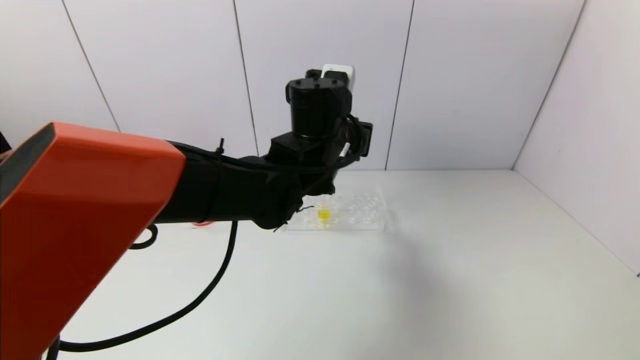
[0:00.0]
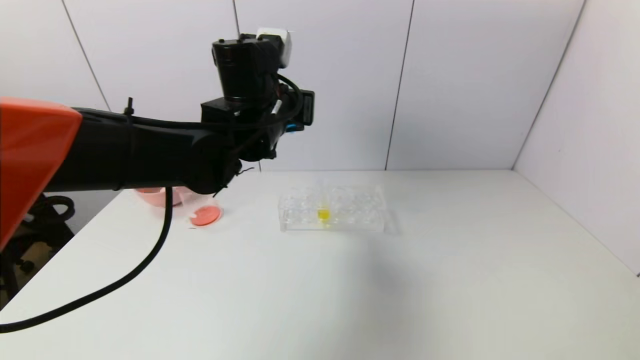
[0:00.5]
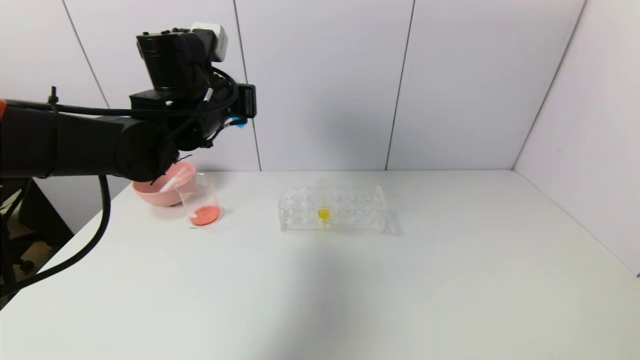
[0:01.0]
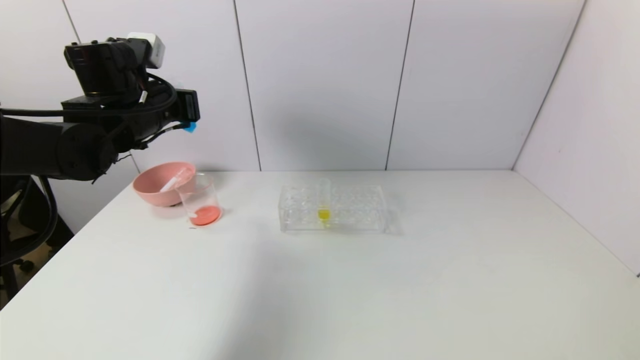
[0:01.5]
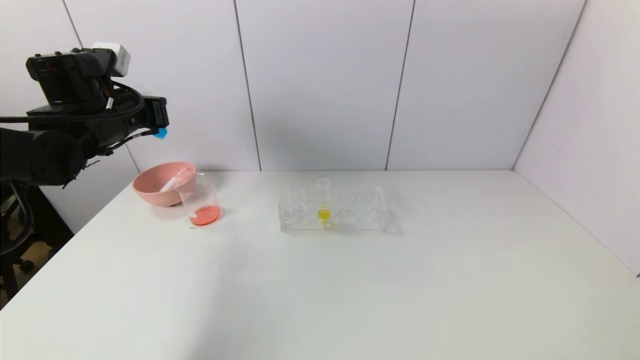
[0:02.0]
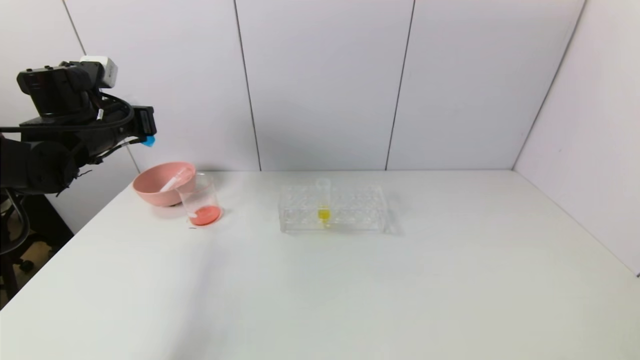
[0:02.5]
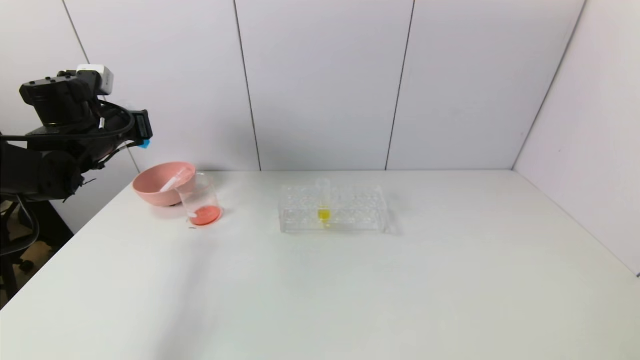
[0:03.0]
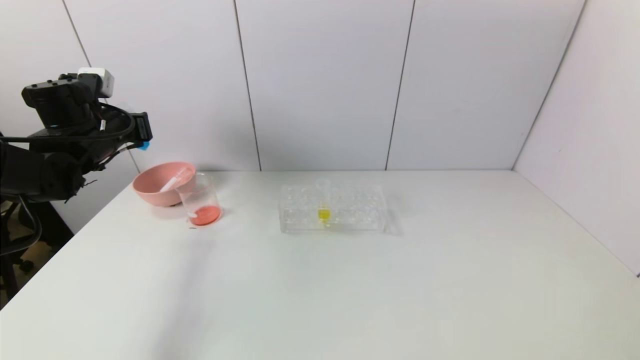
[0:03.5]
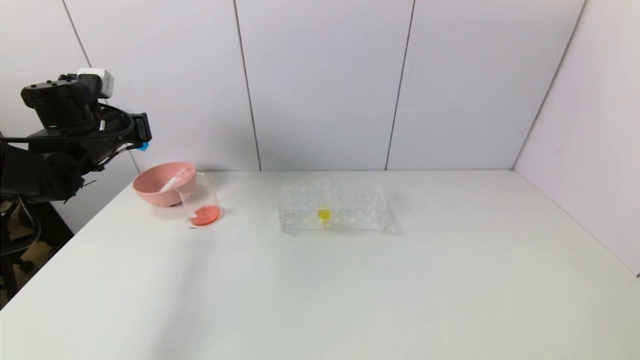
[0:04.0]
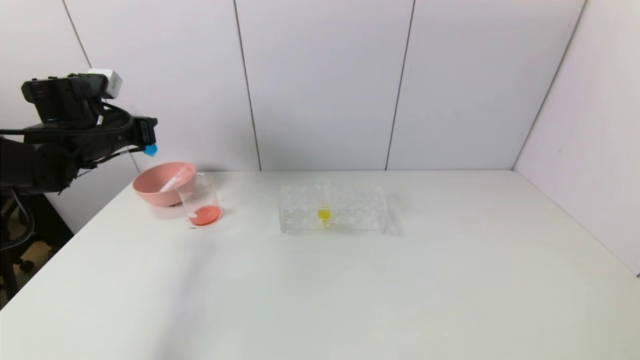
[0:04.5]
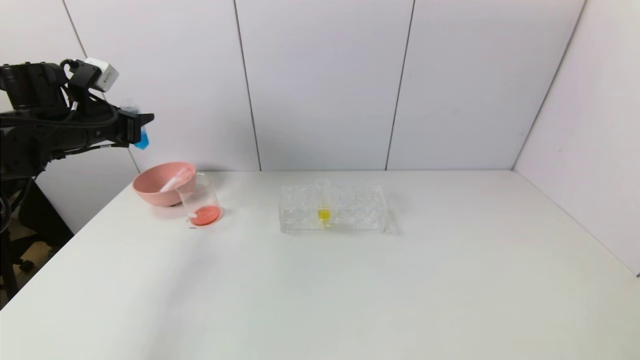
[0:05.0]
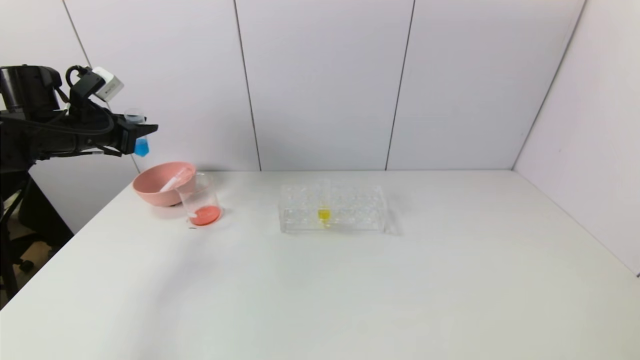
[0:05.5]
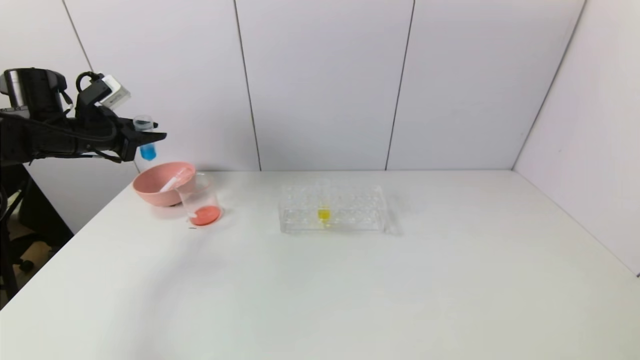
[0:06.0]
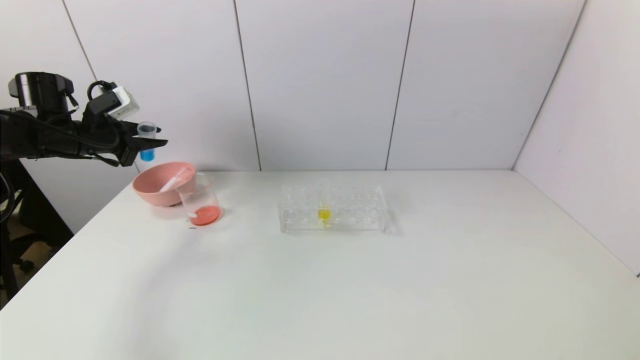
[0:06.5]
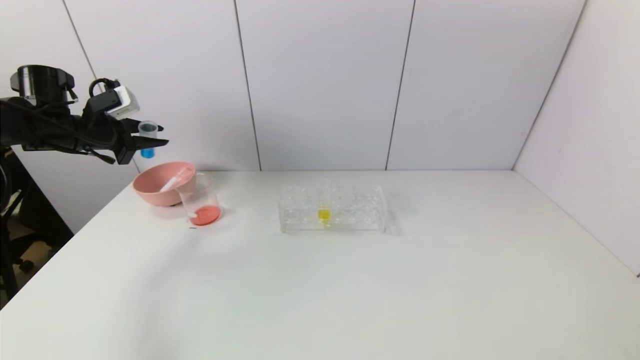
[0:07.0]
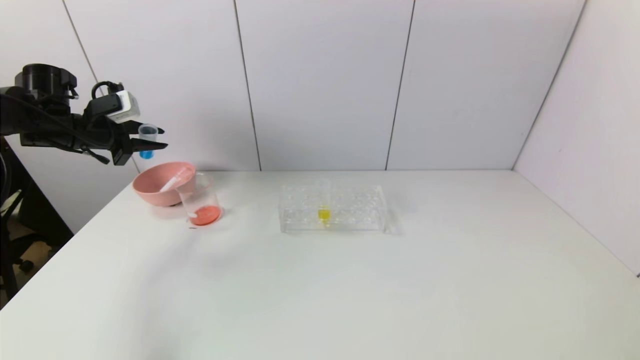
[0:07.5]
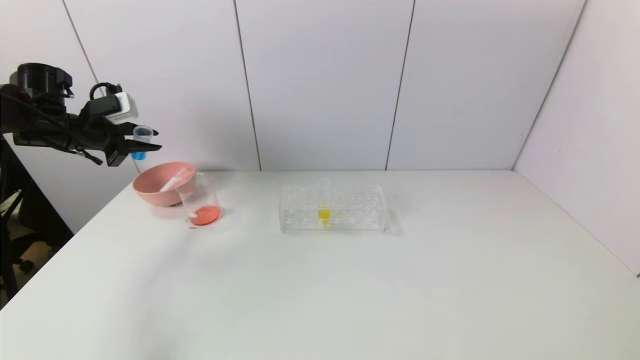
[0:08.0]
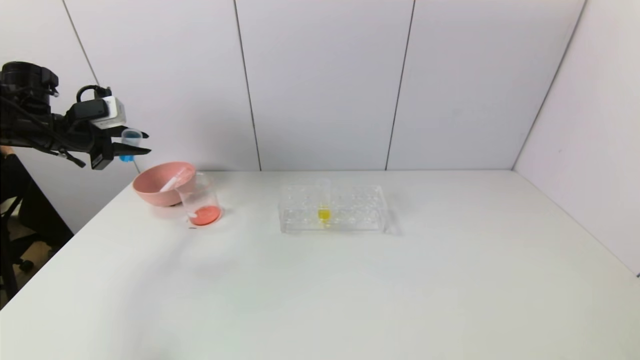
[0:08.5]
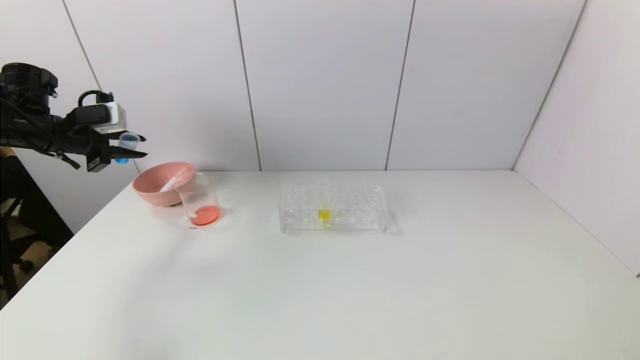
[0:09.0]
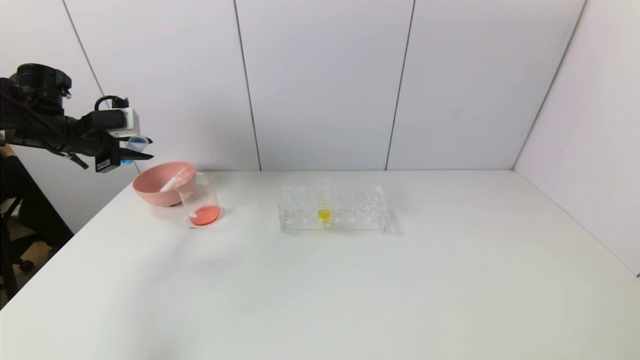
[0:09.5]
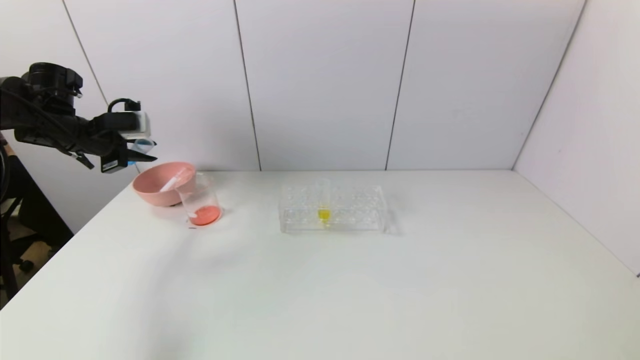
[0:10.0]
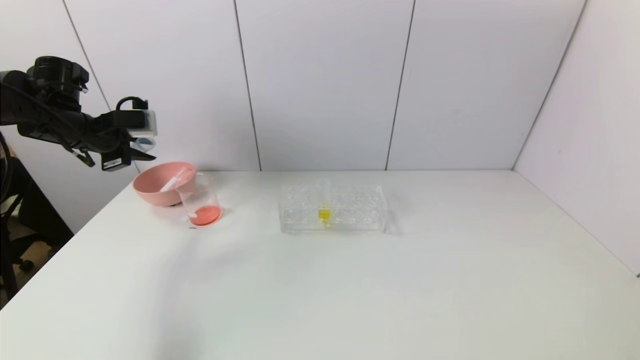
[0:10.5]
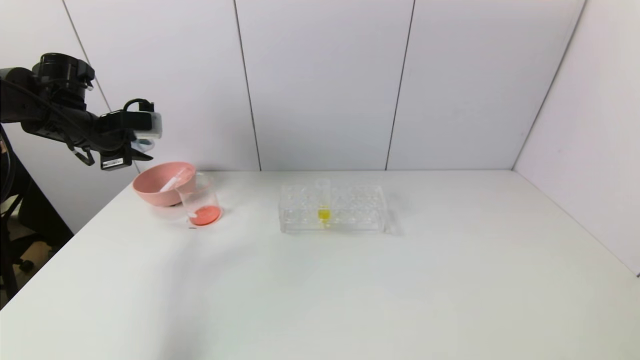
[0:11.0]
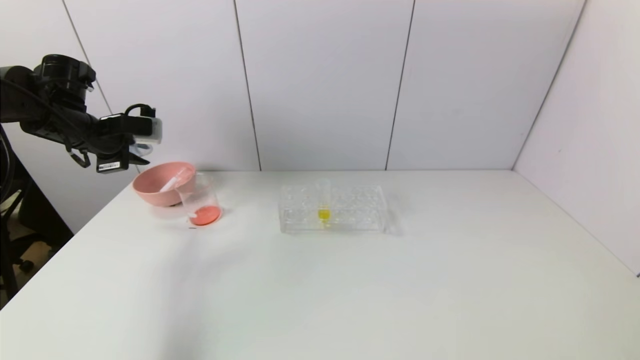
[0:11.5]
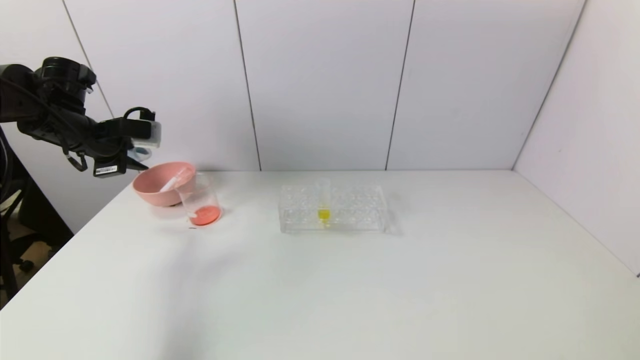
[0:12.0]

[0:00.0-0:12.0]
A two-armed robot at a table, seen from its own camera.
Task of the whole recording: pick up the test tube with red pigment and the test tube with blue pigment by grippers and pour them into the container.
0:00.0 to 0:02.0: The left gripper heads to the left, covering about 30 cm.
0:02.0 to 0:04.0: The left gripper shifts by approximately 5 cm.
0:08.0 to 0:10.0: The grippers stay close to where they were, moving slightly.
0:10.0 to 0:12.0: The grippers make only small movements.

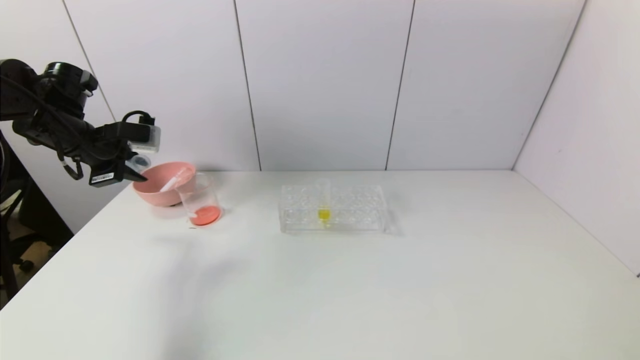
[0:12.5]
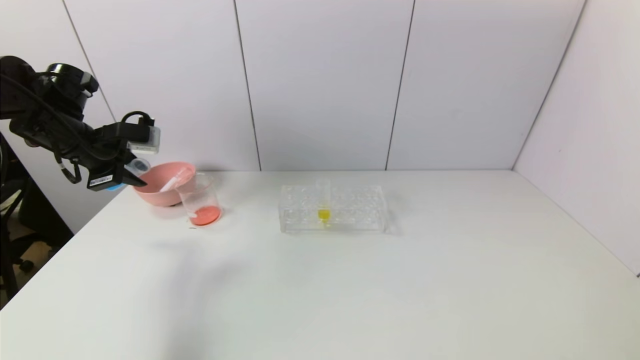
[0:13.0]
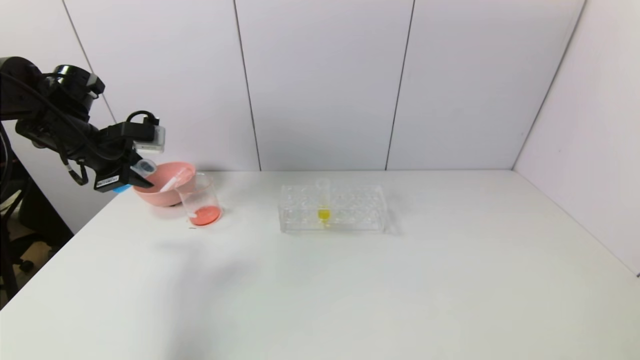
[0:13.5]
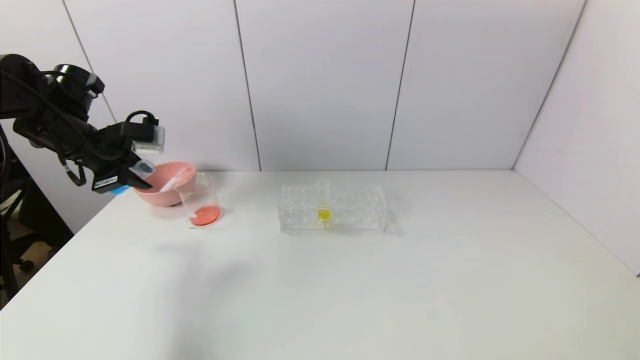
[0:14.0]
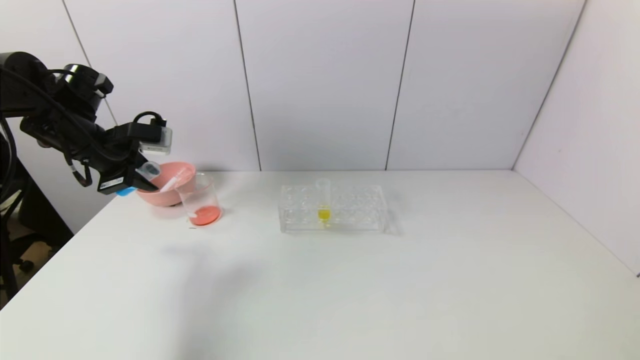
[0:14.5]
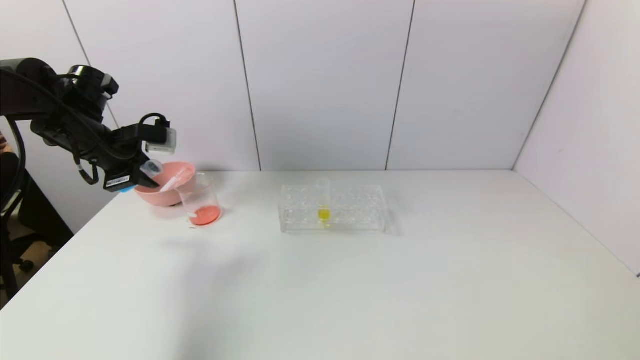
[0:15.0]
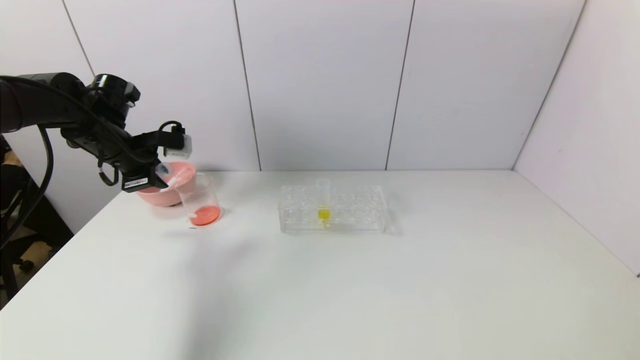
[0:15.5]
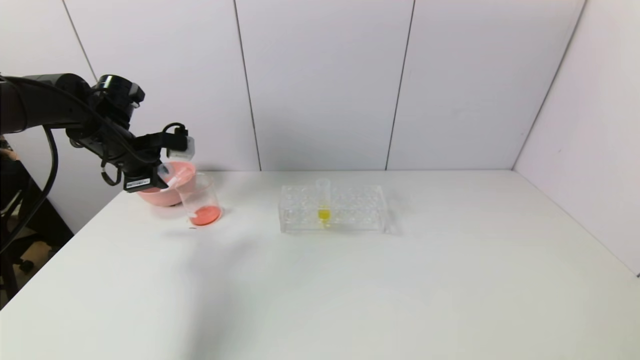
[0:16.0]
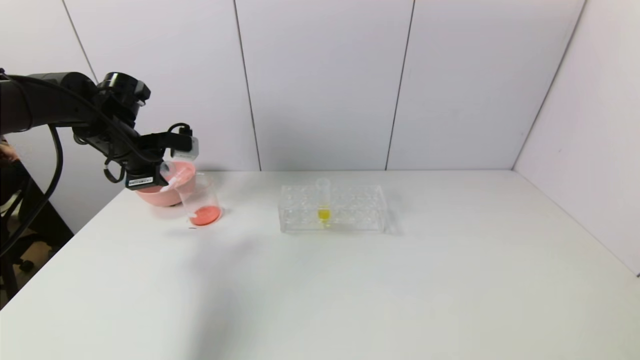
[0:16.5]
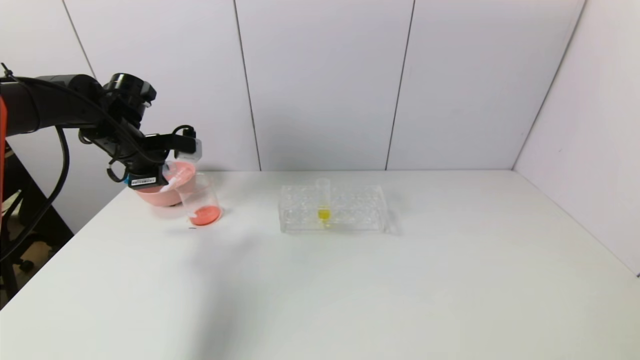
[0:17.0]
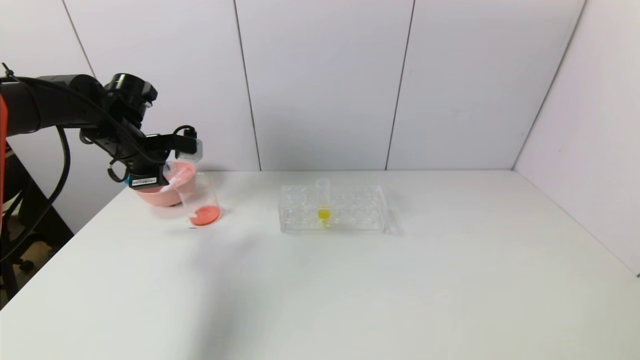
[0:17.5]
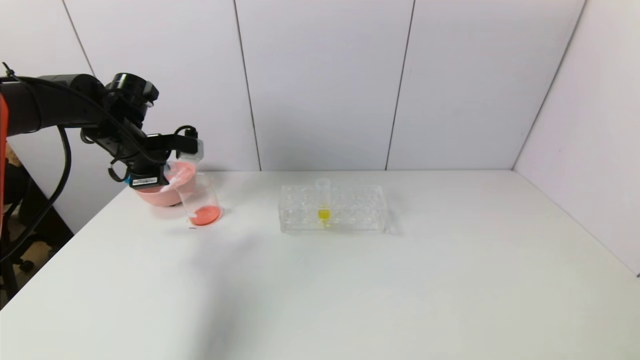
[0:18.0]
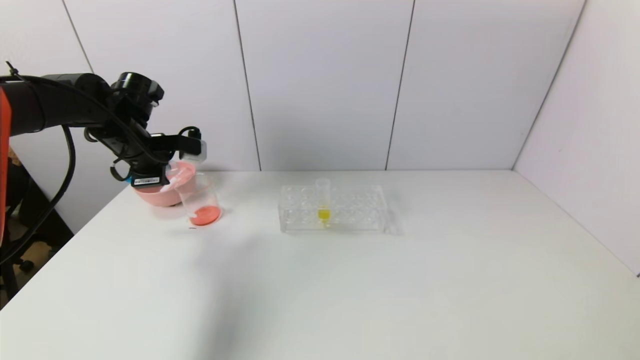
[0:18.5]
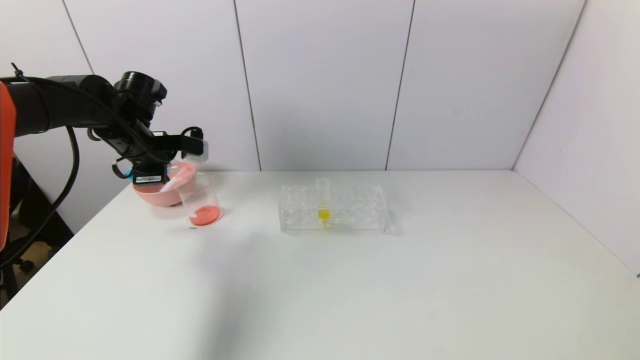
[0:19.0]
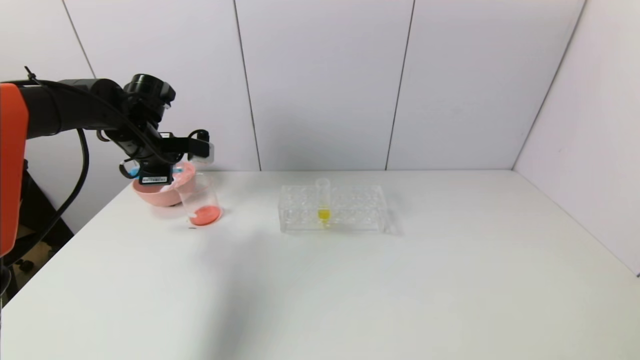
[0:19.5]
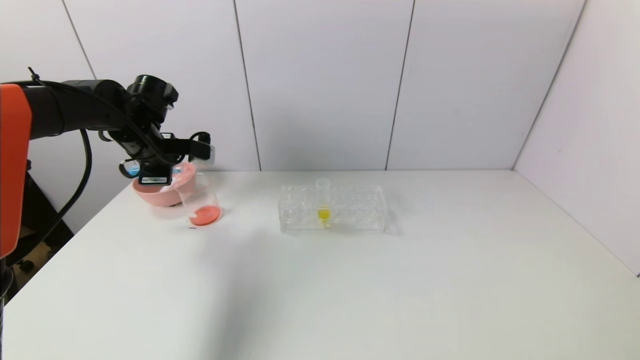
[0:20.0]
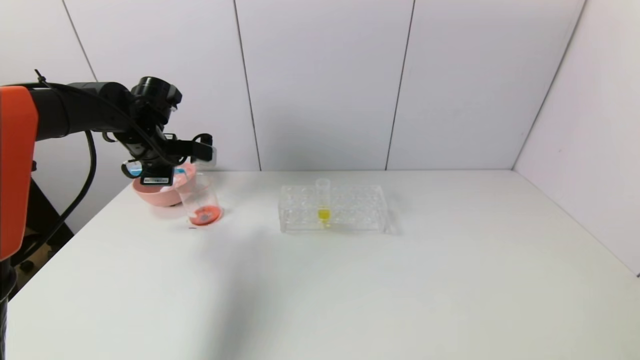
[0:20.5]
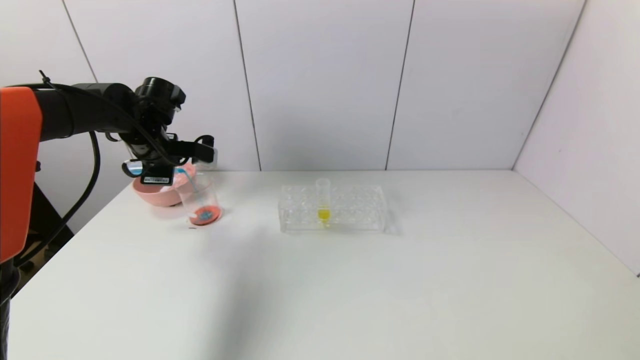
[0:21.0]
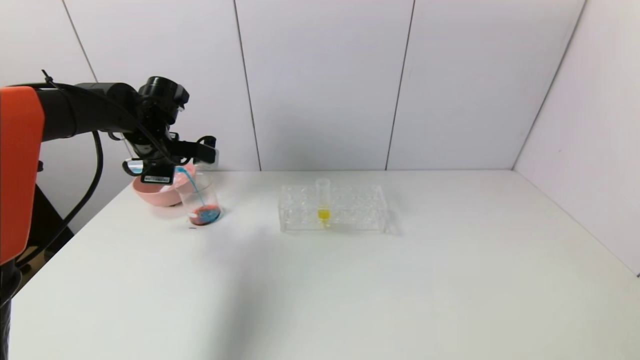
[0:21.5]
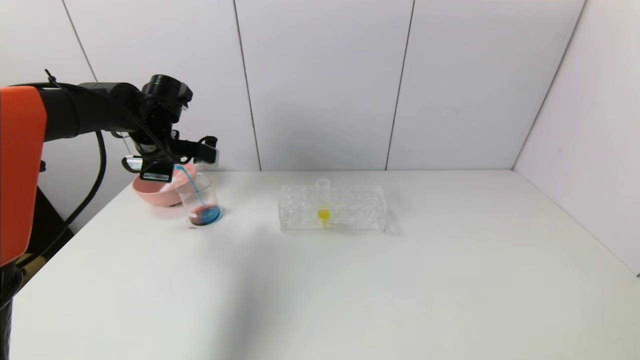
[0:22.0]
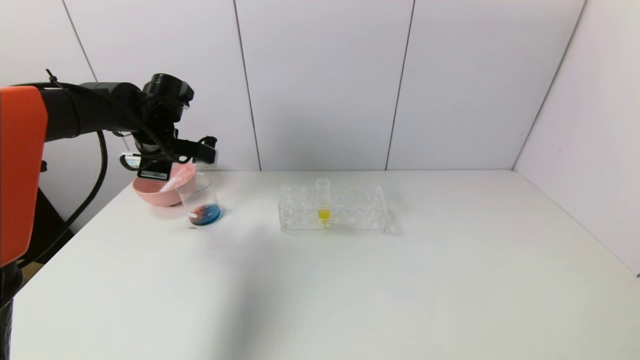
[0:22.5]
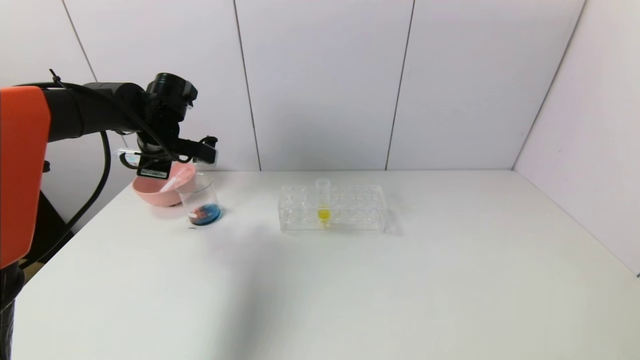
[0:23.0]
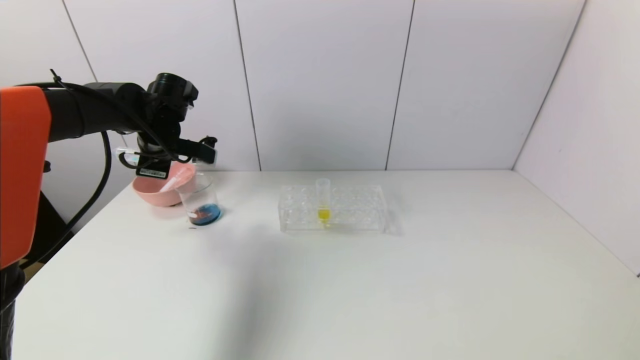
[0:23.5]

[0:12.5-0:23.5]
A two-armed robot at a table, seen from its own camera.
Task of the whole recording: pick up the test tube with red pigment and the test tube with blue pigment by grippers and pour them into the container.
Step, 0:12.5 to 0:23.0: Pour the blue reagent into the graduated cylinder with the left gripper.
0:12.5 to 0:16.0: The grippers make only small movements.
0:16.0 to 0:20.0: There are only small adjustments of the grippers.
0:20.0 to 0:21.5: There are only small adjustments of the grippers.
0:21.5 to 0:23.5: The grippers make only small movements.
